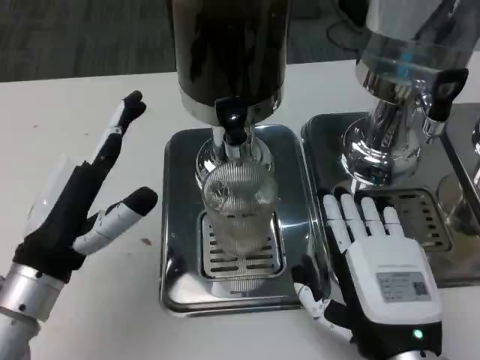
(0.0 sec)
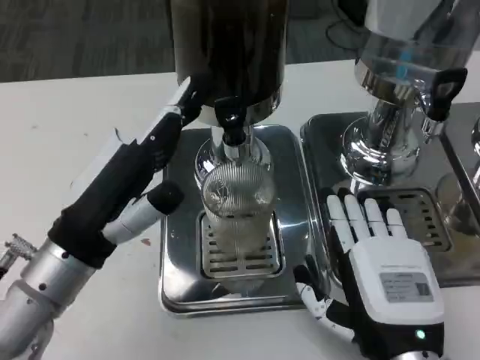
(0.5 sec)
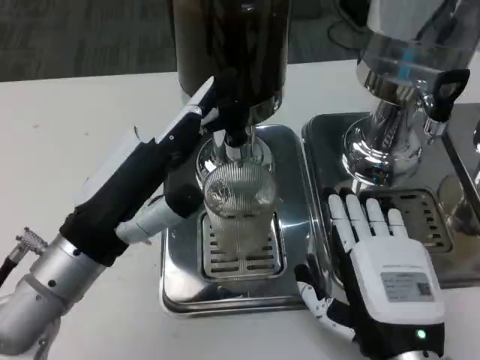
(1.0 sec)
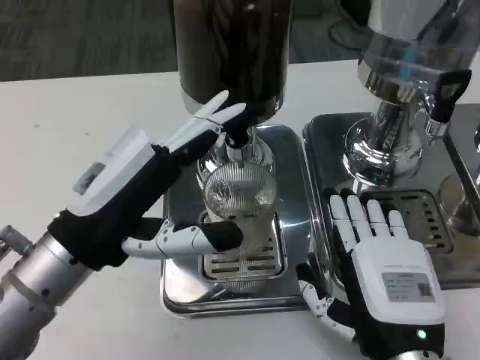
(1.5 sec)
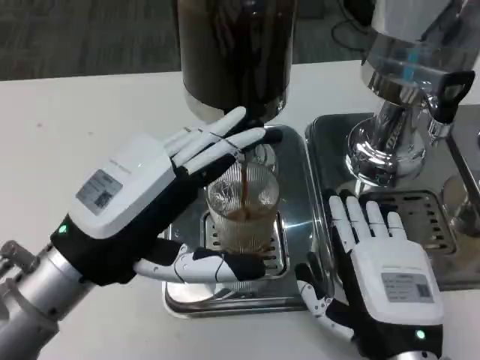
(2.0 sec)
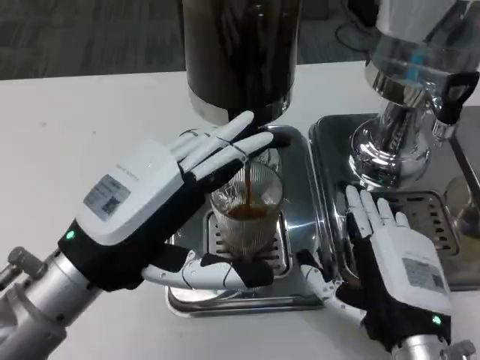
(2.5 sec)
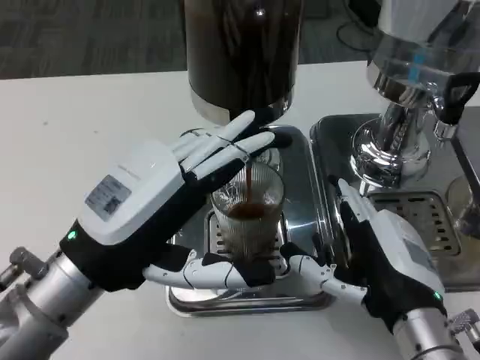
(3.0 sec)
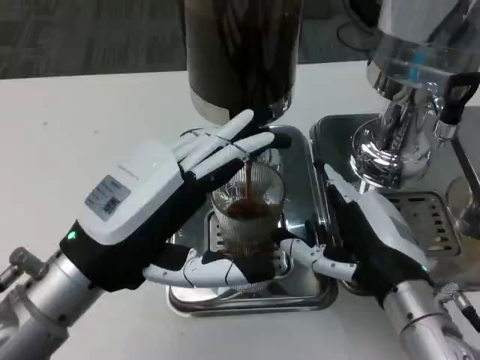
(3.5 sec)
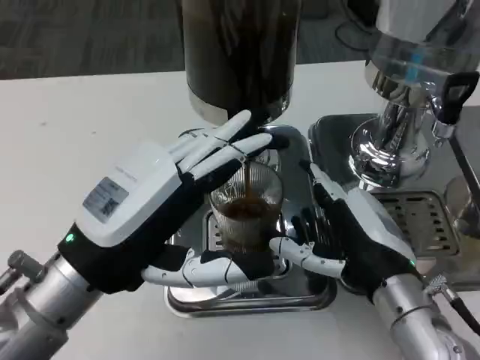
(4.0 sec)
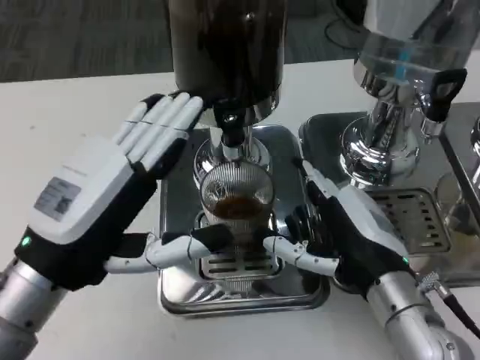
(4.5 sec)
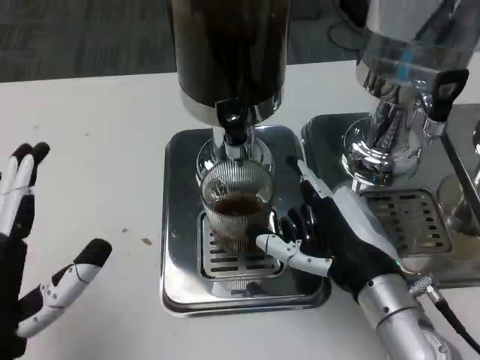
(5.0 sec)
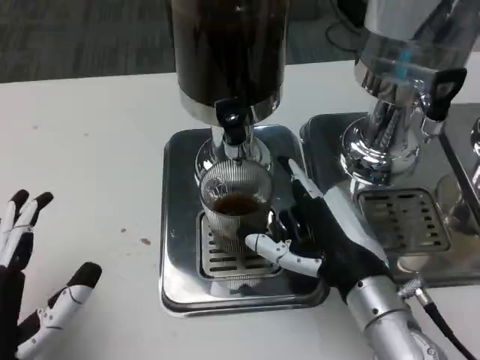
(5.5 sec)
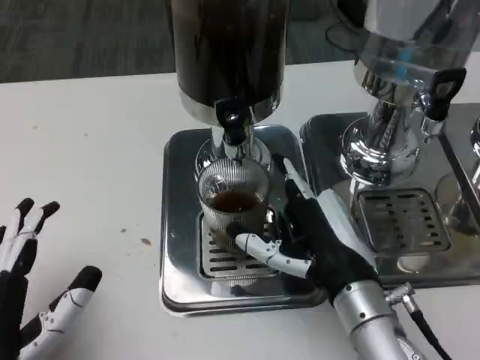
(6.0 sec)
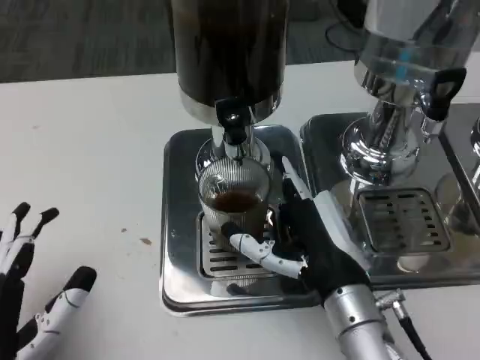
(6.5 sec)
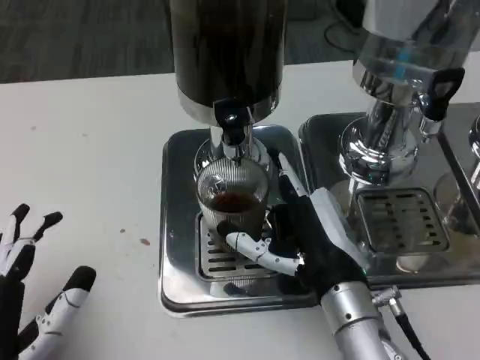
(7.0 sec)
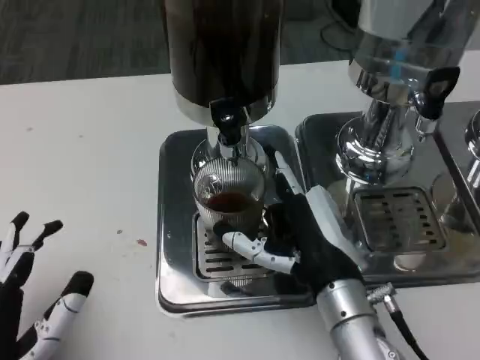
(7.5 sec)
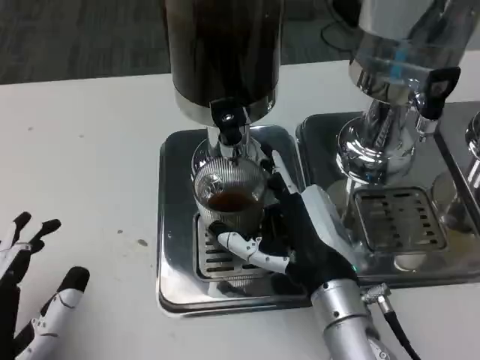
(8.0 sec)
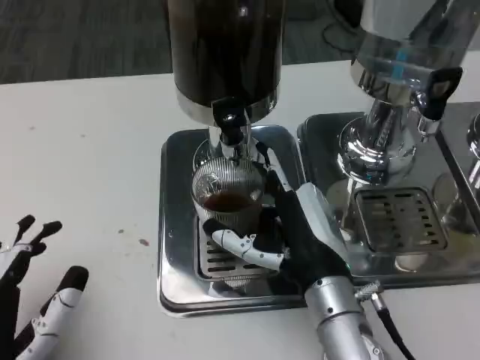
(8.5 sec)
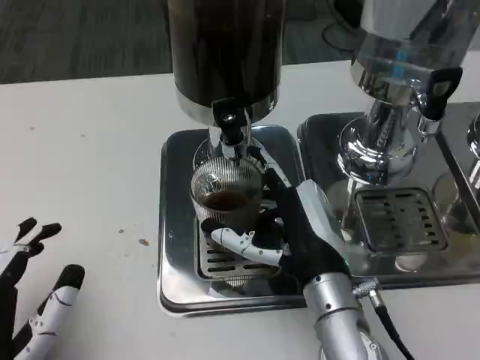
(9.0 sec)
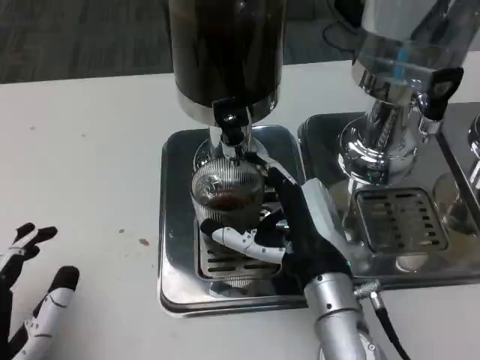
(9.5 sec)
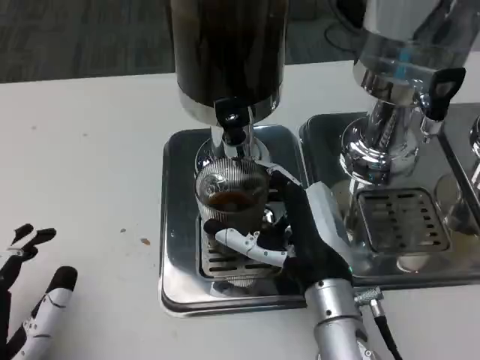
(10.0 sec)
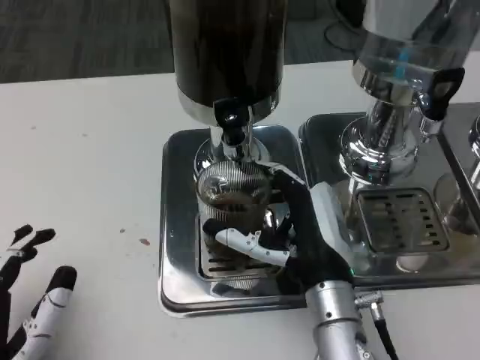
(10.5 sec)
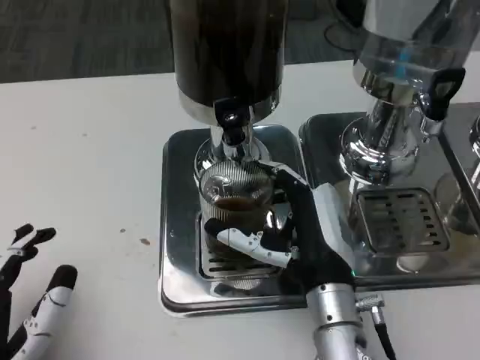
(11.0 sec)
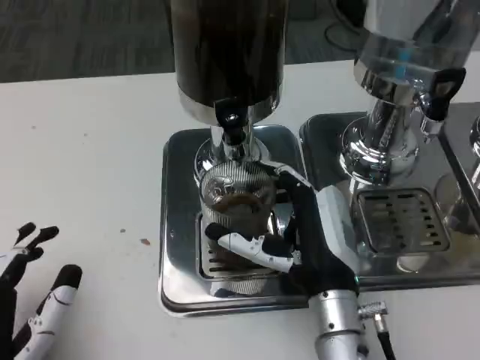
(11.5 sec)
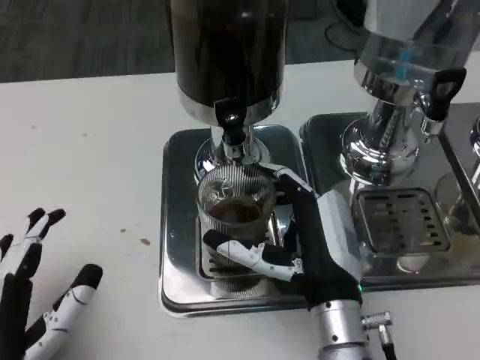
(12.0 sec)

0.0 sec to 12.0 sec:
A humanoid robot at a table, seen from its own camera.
Task of the whole recording: Grasp the cup under the faucet to collect the drink, then remove the cup.
0.0 sec to 2.0 sec: The left hand is displaced upward by about 5 cm.
2.0 sec to 4.0 sec: The right hand heads forward, covering about 5 cm.
4.0 sec to 6.0 sec: The left hand goes some 15 cm downward, backward and to the left.
8.0 sec to 12.0 sec: The hands stay close to where they were, moving slightly.

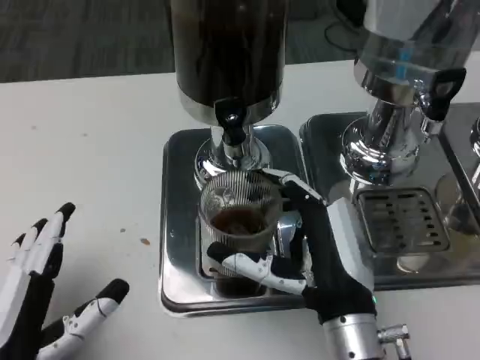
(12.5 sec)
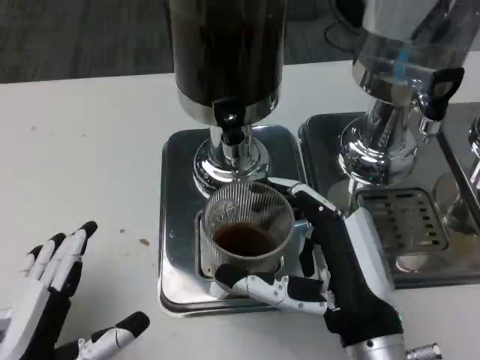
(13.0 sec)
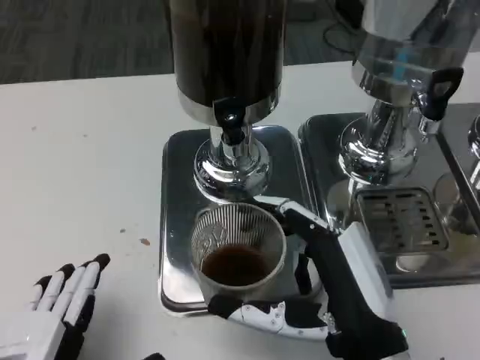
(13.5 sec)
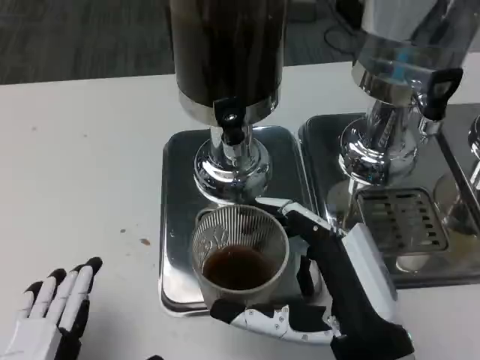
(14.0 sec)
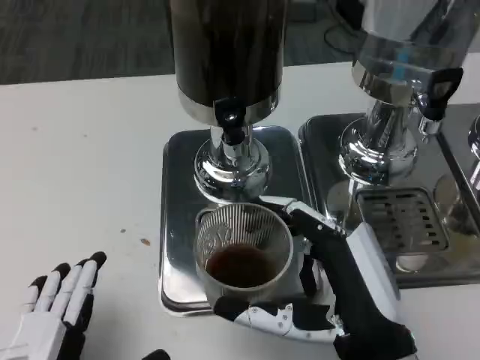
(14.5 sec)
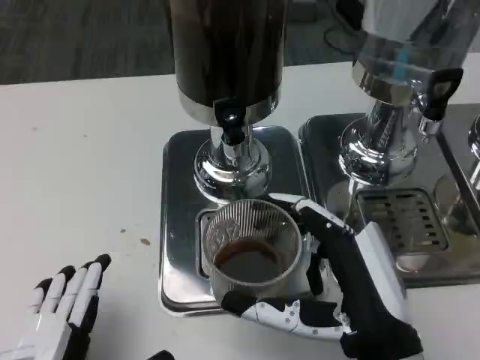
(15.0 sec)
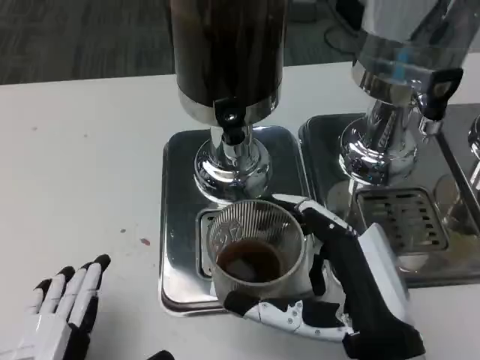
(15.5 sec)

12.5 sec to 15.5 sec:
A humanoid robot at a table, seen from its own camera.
Task of the whole recording: Grasp the cup under the faucet to collect the drink, then remove the cup.
12.5 sec to 14.0 sec: The left hand is displaced backward by some 5 cm. The right hand moves about 5 cm.
14.0 sec to 15.5 sec: The two hands keep their place.

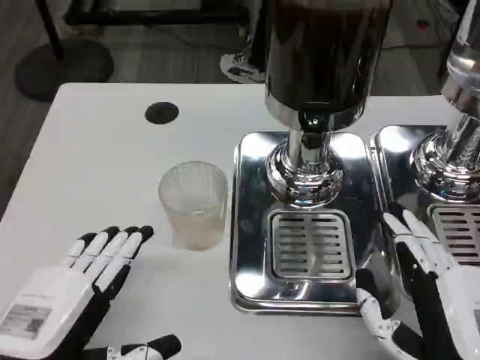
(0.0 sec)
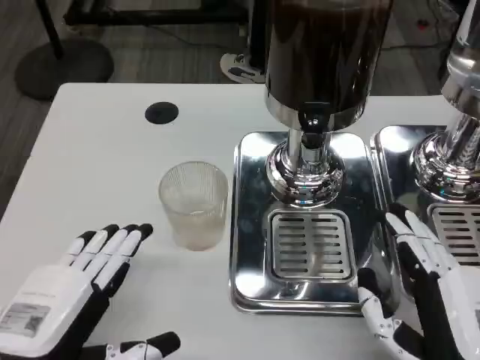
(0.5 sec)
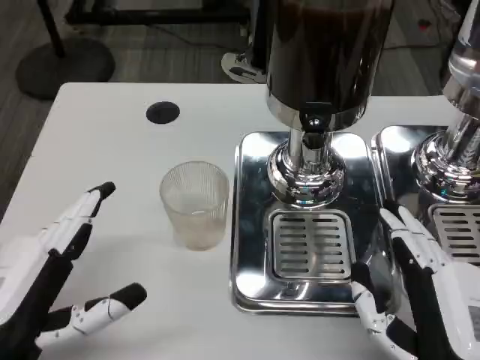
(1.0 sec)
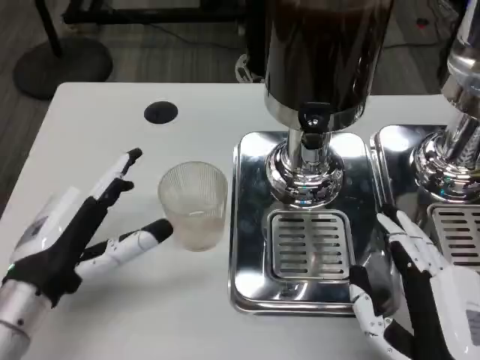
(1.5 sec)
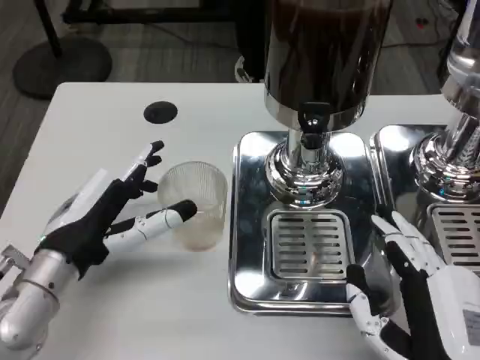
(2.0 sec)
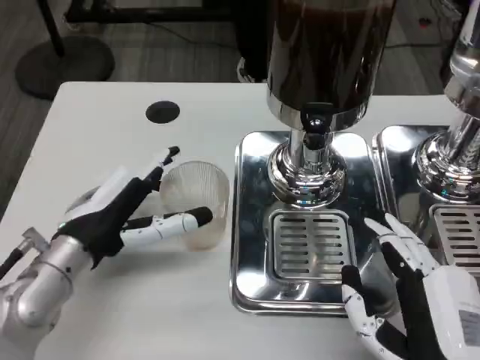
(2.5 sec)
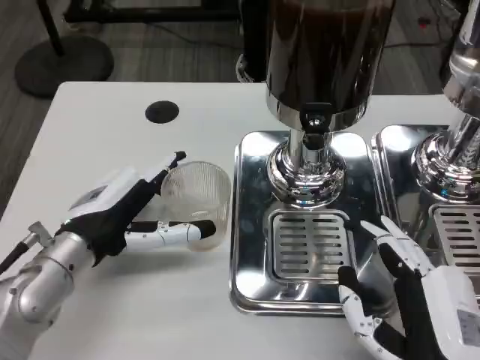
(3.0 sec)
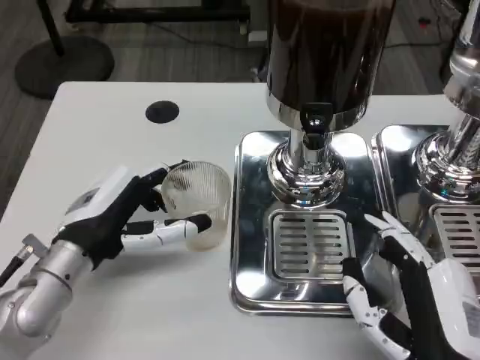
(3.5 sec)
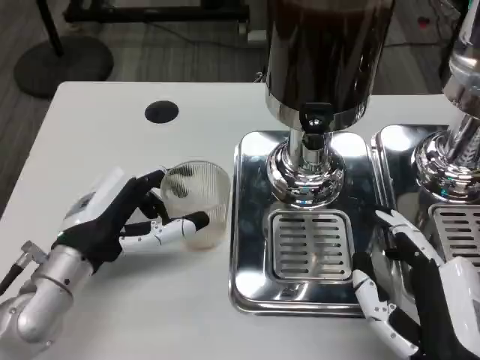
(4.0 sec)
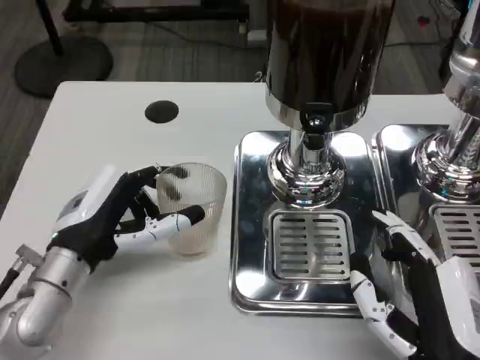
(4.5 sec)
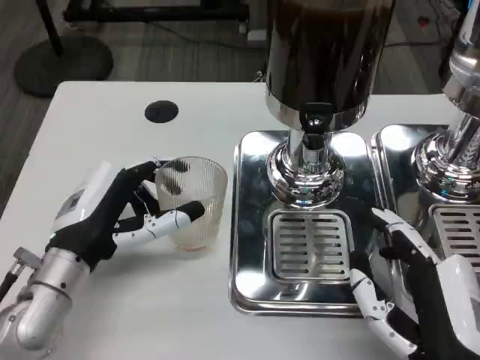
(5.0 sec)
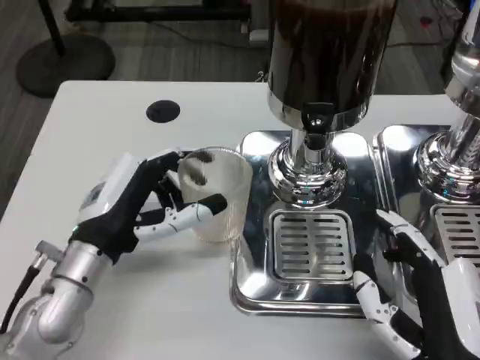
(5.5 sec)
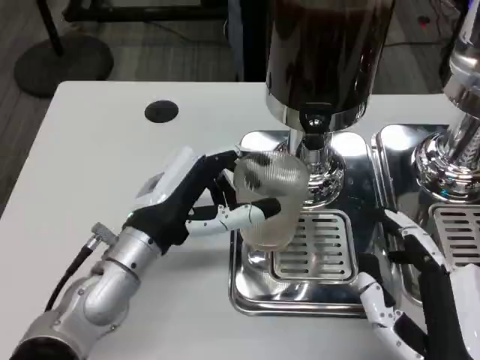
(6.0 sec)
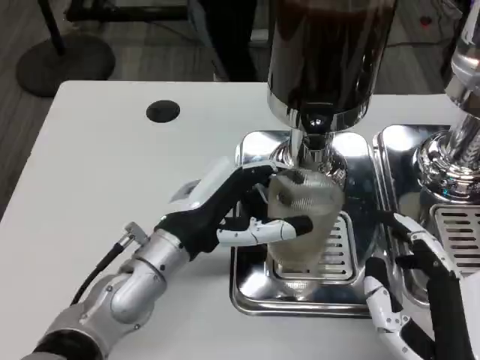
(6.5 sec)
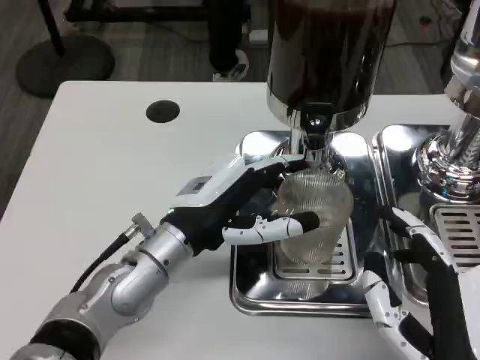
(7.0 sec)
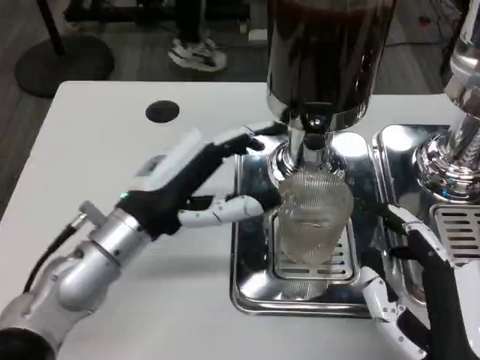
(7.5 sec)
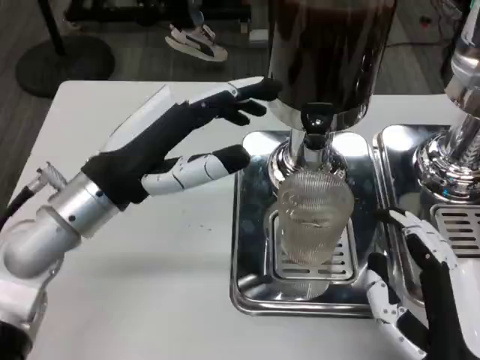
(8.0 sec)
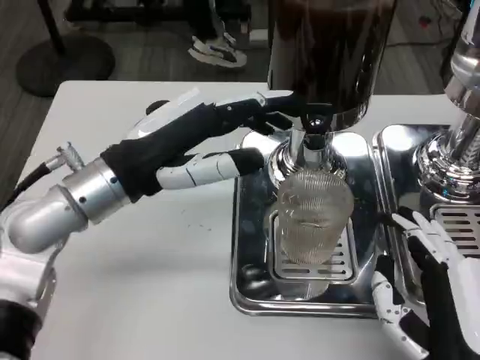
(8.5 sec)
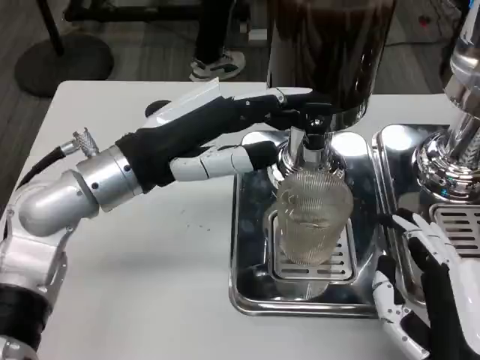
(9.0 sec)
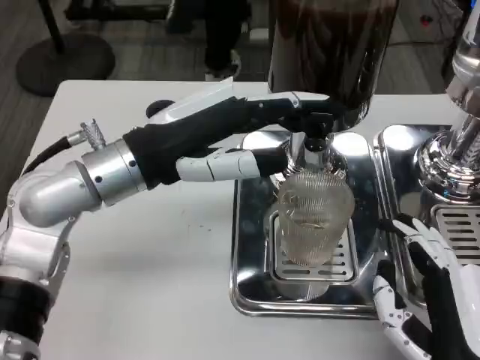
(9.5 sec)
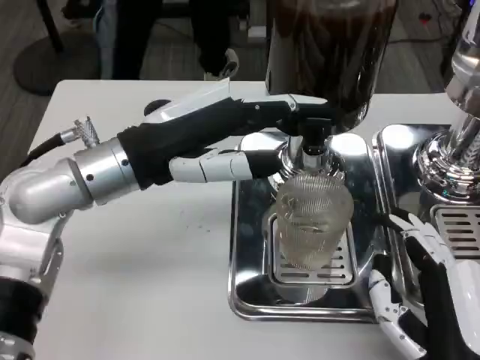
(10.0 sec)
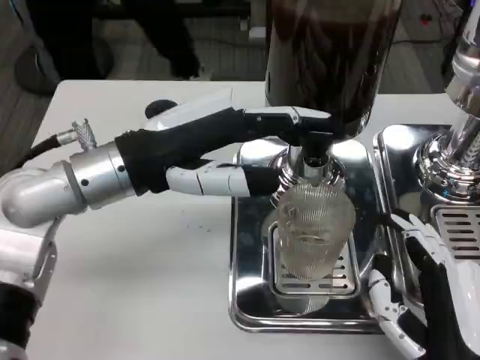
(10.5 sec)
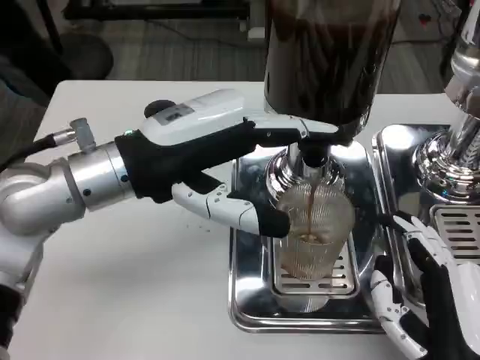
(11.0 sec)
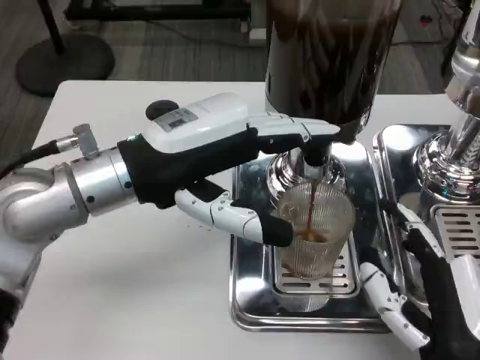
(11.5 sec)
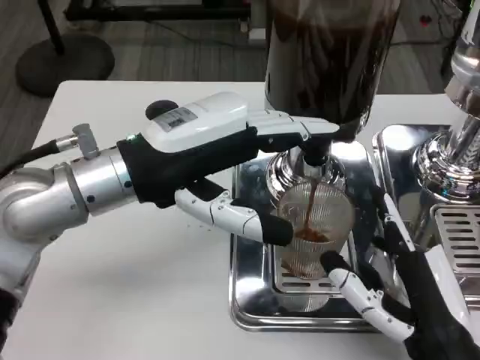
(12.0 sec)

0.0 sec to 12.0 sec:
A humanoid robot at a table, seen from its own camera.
Task of the whole recording: Grasp the cup under the faucet to collect the drink, then remove the cup.
0.0 sec to 2.0 sec: The left hand shifts about 10 cm forward.
4.0 sec to 6.0 sec: The left hand heads to the right, covering roughly 5 cm.
6.0 sec to 8.0 sec: The left hand travels upward by approximately 10 cm.
